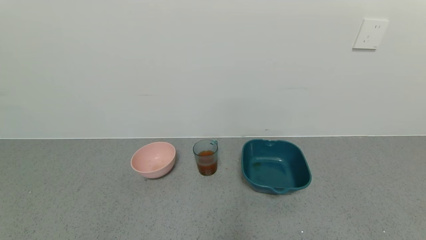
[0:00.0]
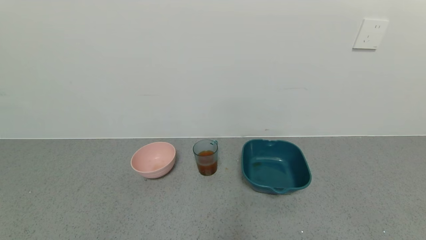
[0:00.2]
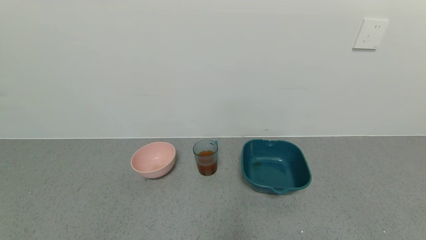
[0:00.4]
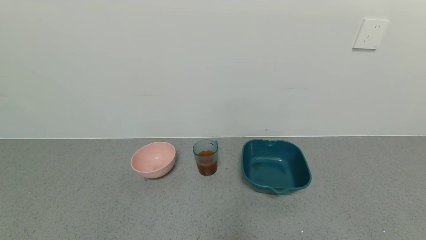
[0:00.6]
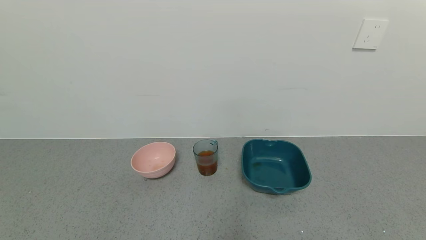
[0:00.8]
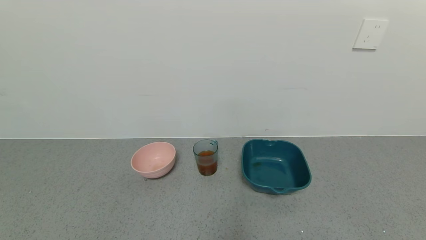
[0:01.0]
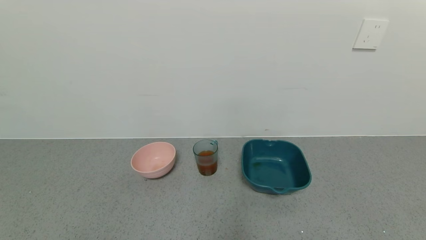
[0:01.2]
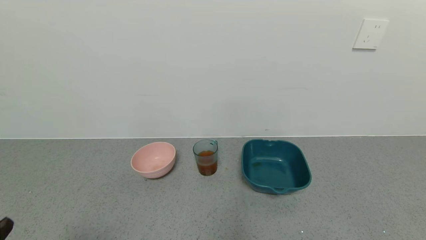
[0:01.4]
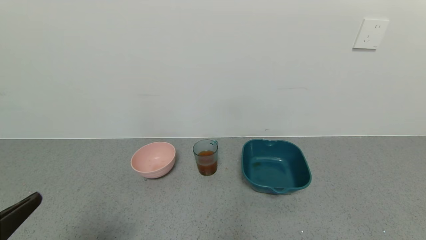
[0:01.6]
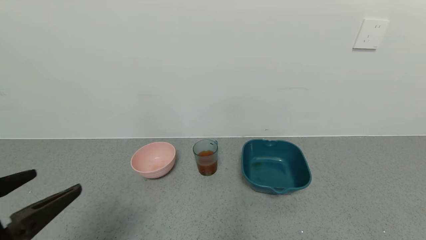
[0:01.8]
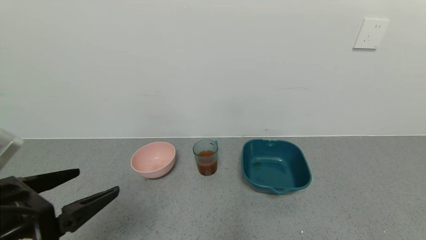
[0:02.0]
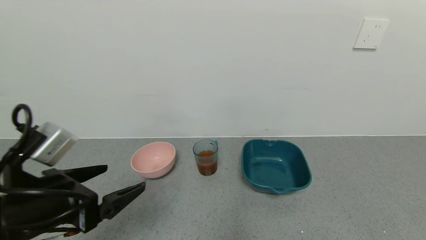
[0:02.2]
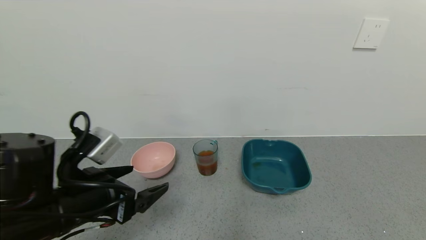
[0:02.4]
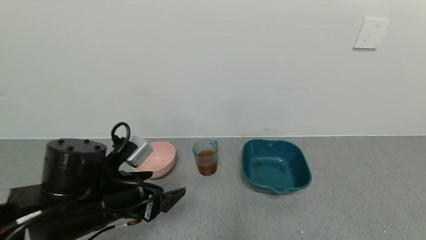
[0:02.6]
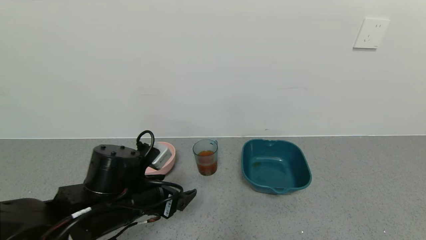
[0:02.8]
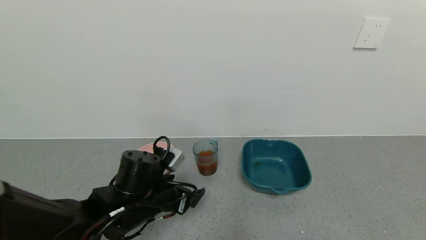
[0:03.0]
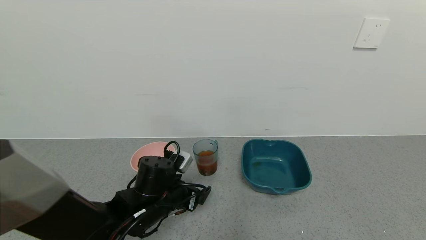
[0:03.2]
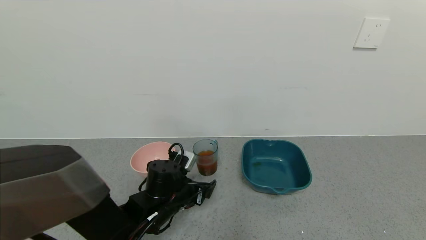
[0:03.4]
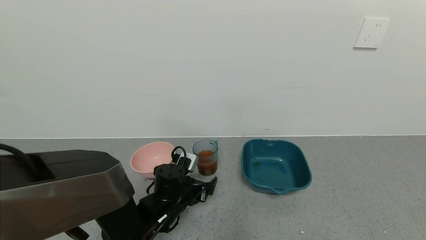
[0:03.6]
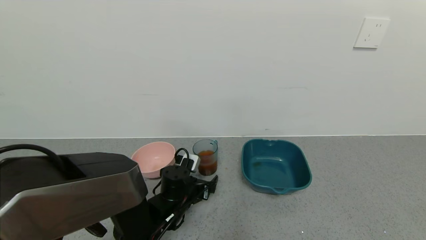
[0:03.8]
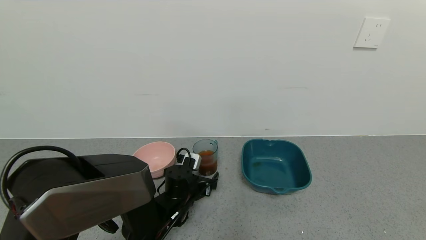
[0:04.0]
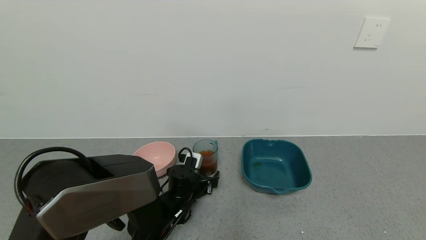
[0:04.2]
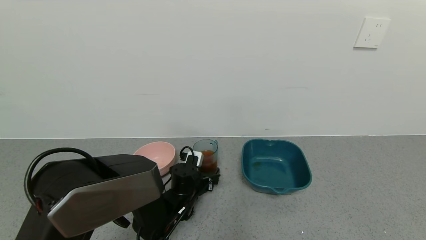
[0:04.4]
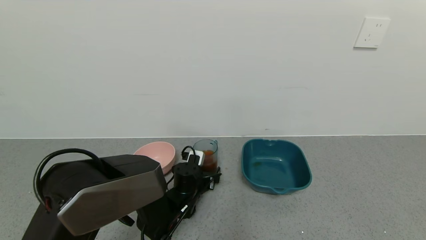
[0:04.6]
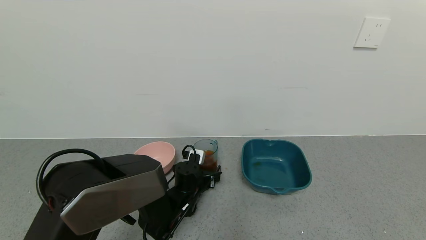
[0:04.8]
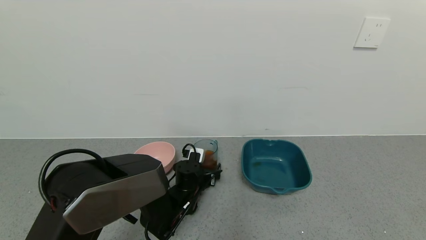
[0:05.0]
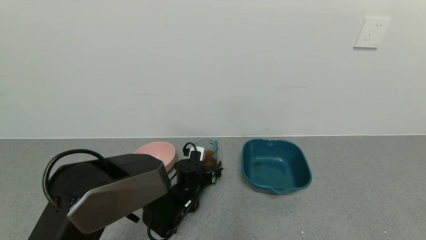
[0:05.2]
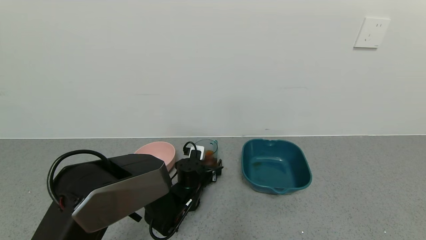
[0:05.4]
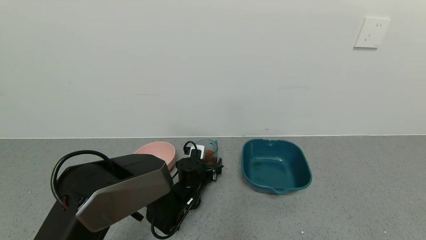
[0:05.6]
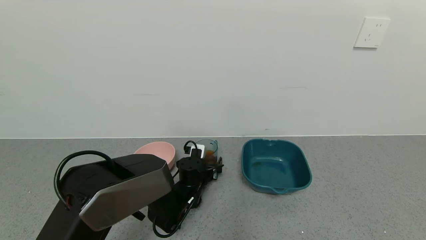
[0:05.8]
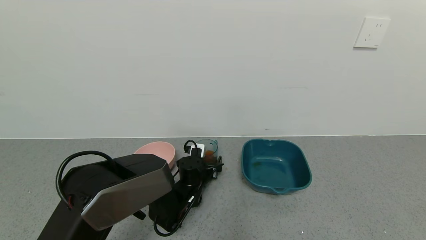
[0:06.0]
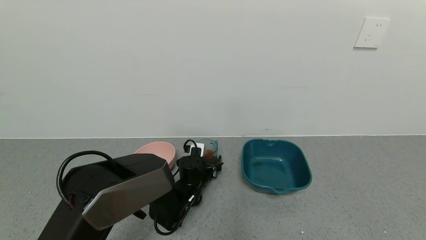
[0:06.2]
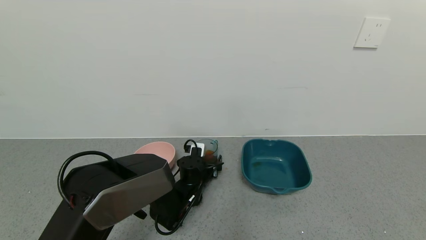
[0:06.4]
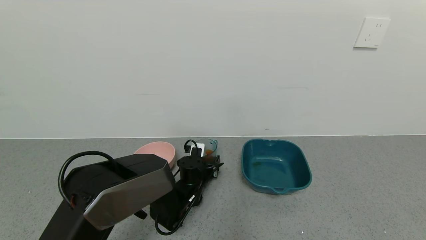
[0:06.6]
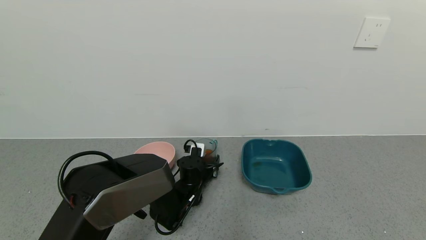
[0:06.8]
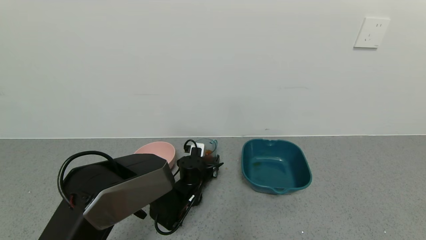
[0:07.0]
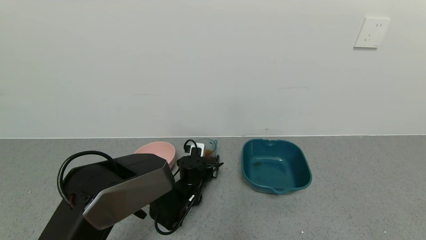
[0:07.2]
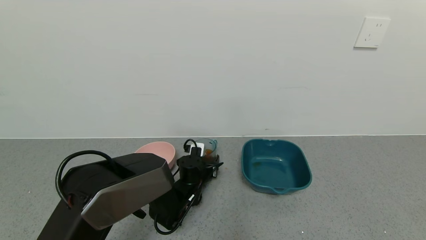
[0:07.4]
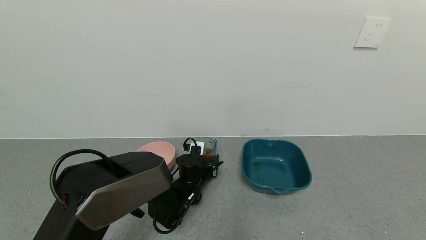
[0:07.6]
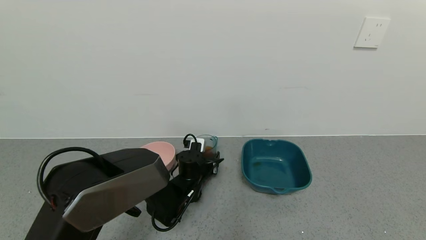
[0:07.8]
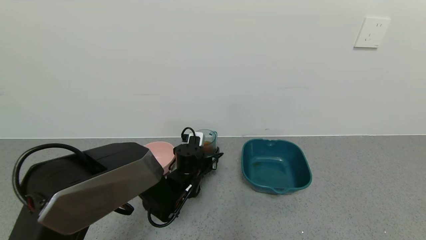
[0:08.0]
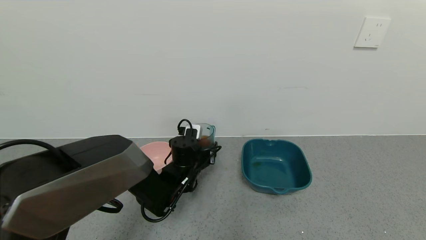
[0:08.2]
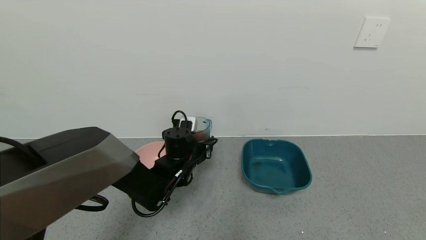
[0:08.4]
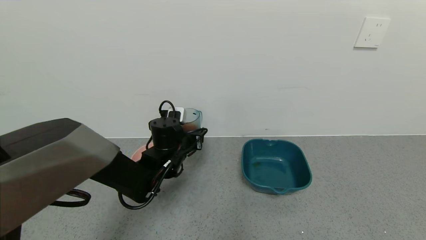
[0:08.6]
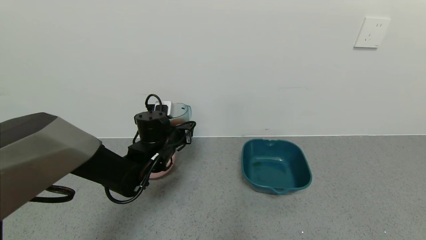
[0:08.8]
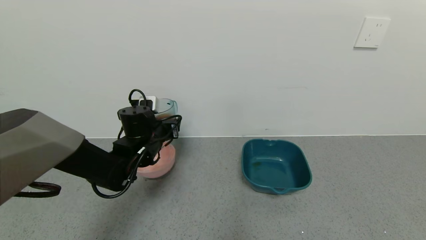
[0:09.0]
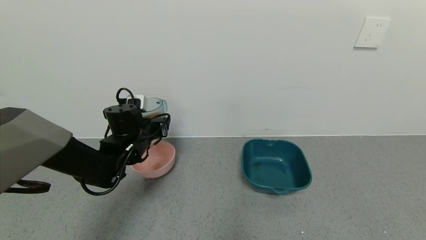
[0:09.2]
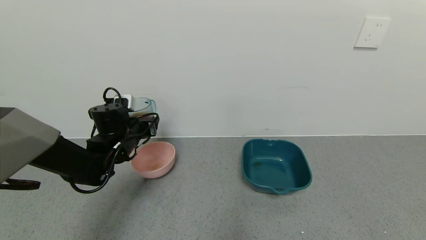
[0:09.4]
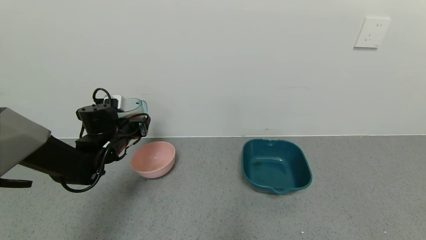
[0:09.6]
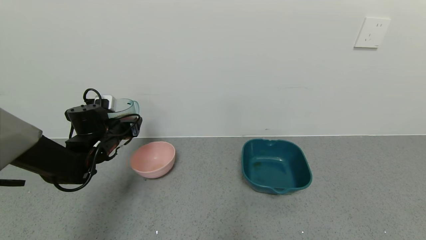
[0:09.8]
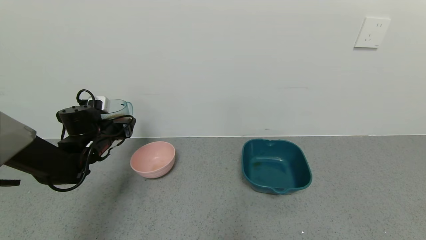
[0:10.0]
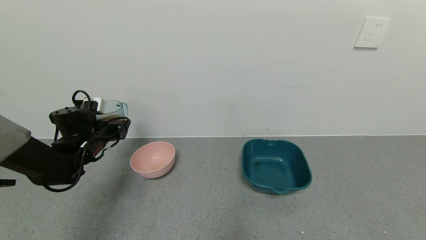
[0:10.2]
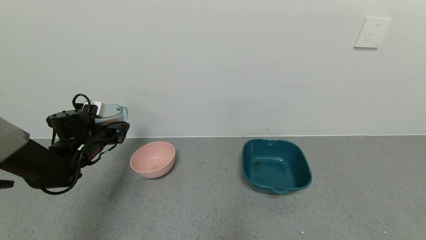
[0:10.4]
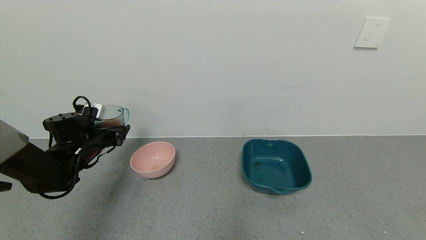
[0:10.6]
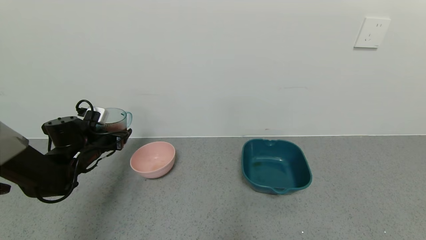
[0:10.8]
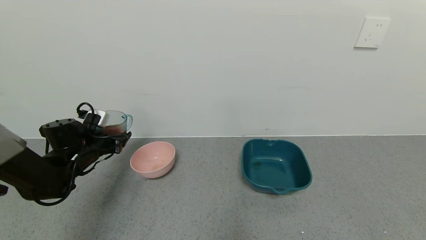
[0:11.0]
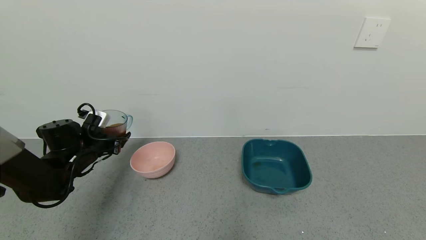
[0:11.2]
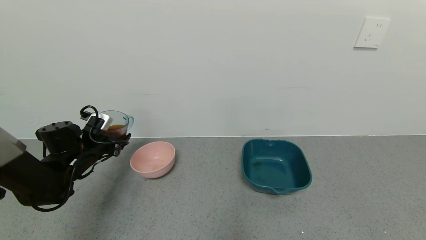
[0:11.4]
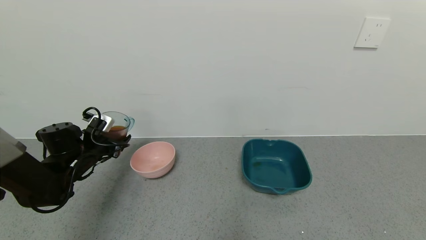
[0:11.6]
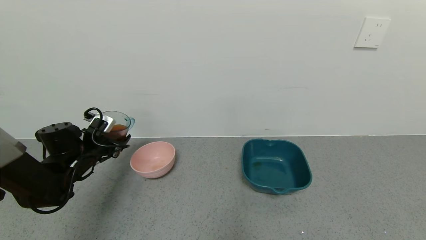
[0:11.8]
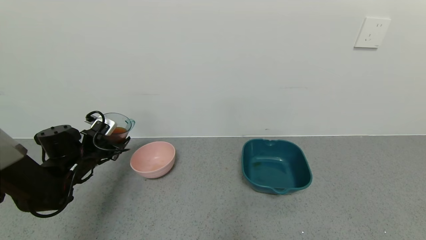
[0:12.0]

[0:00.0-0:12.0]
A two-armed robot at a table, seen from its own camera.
Task of the whole recording: use a gripper to pick up the cup and pour the liquid into a bowl or tray.
Step, 0:00.0 to 0:08.2: Pick up blue cup filled with tea with left gripper.
0:00.0 to 0:01.6: The left gripper is displaced upward and forward by approximately 15 cm.
0:01.6 to 0:03.0: The left gripper shifts roughly 25 cm forward, to the right and downward.
0:03.0 to 0:04.4: The left gripper goes some 15 cm downward and forward.
0:04.4 to 0:06.0: The grippers move only a little.
0:06.0 to 0:07.6: The left gripper closes its fingers.
0:07.6 to 0:09.0: The left gripper moves upward and to the left, approximately 15 cm.
0:09.0 to 0:10.4: The left gripper goes about 15 cm to the left.

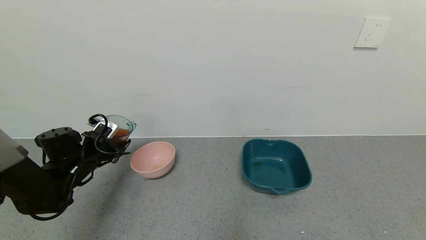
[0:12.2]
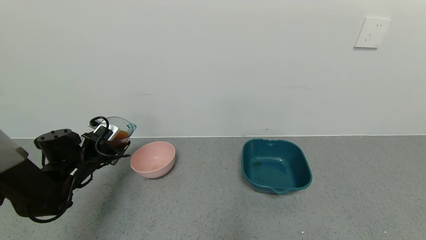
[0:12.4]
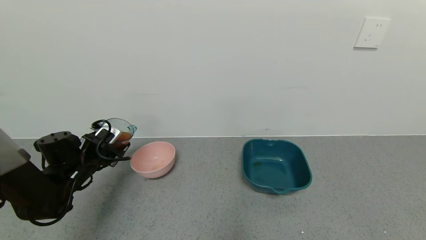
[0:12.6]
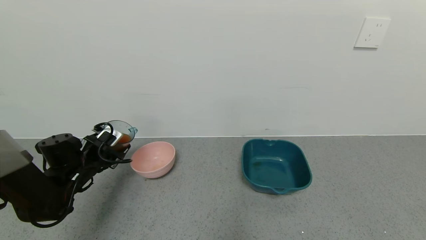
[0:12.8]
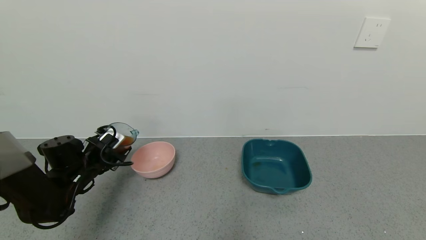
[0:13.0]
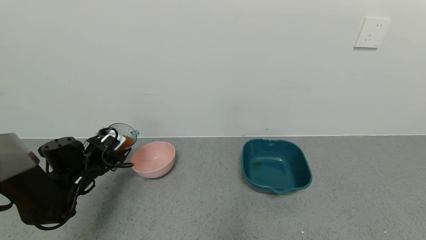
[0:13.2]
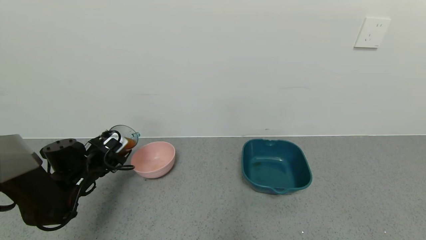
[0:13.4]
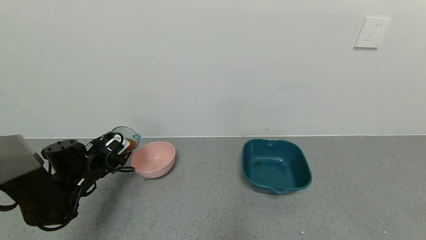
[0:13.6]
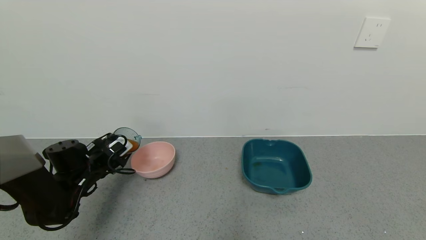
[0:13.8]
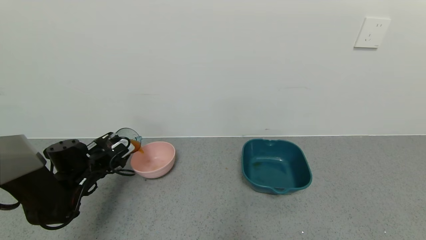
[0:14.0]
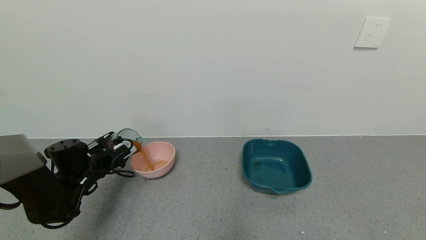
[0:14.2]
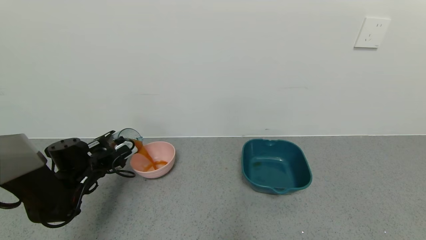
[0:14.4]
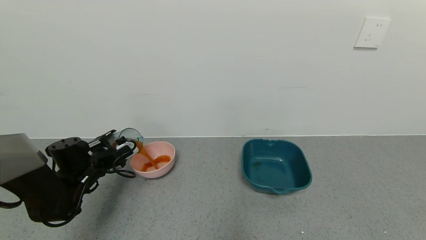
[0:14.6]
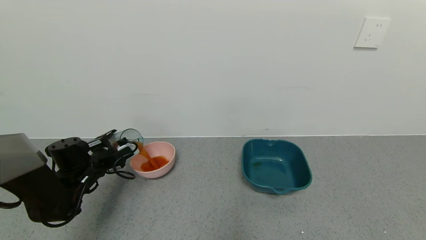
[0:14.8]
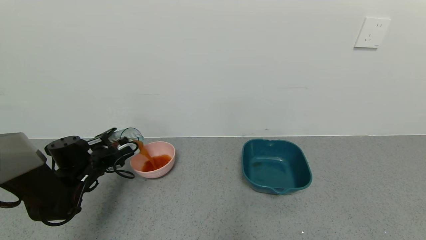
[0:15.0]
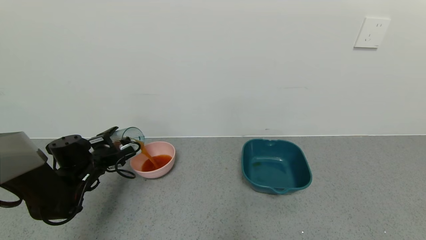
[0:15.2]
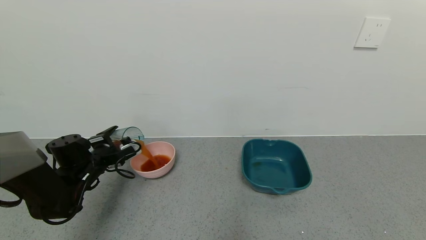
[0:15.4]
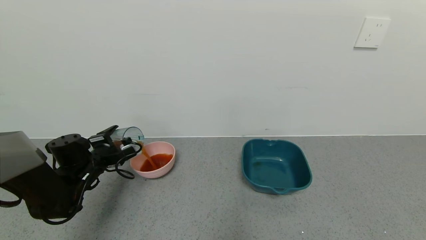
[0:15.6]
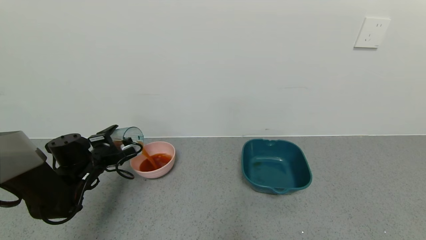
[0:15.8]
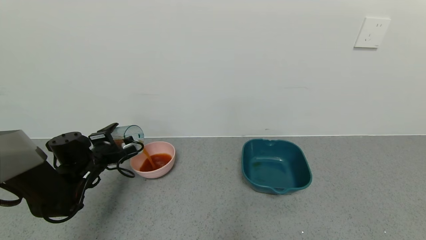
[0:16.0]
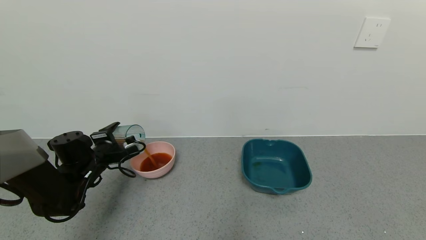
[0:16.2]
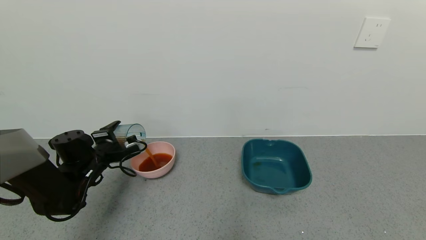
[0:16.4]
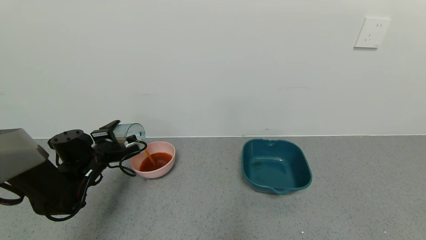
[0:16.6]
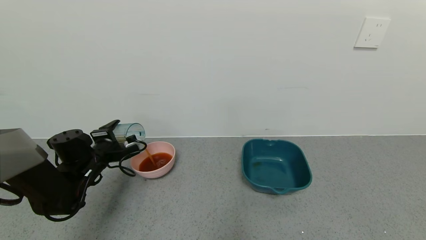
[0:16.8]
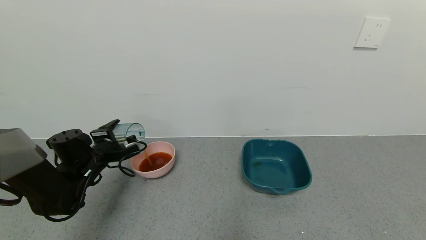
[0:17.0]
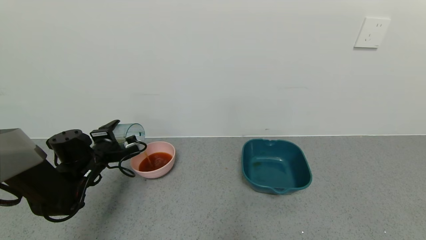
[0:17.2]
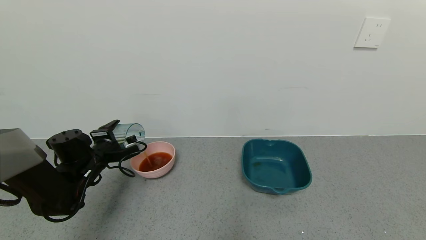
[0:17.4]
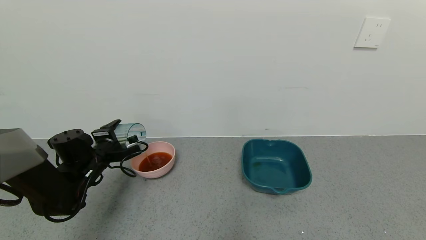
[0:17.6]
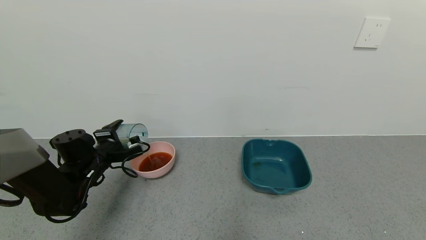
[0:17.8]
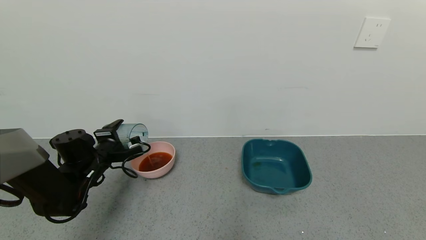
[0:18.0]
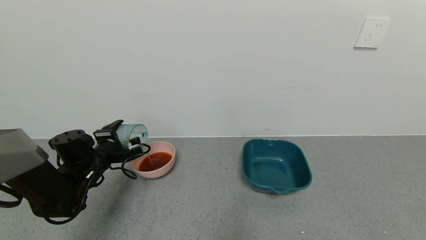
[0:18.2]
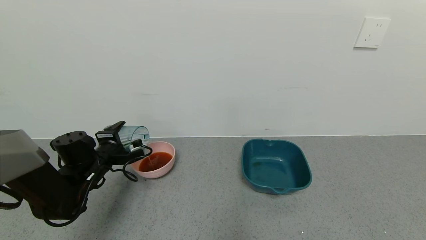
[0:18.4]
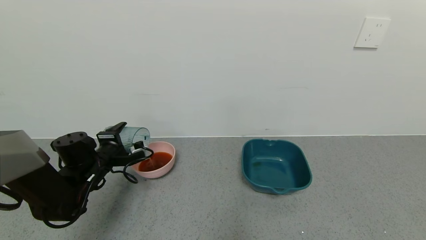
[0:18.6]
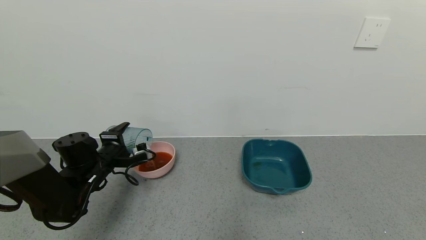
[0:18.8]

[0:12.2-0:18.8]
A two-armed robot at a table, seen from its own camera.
Task of the whole recording: use a gripper to pick up the cup and pour the liquid into a bowl or tray.
0:12.2 to 0:13.8: The grippers make only small movements.
0:15.4 to 0:18.8: The grippers move only a little.
